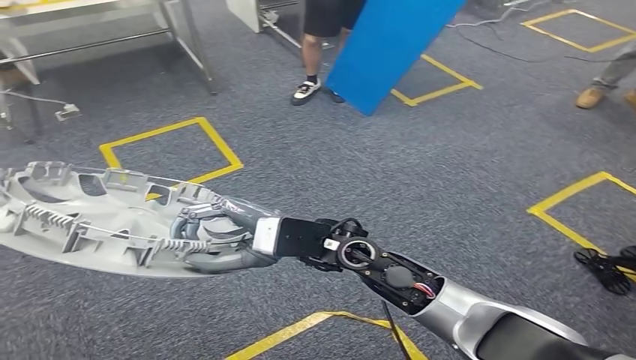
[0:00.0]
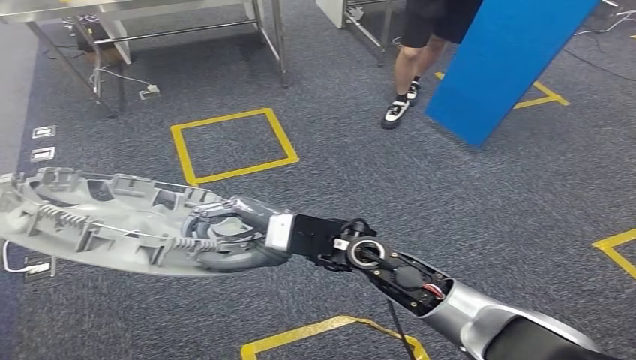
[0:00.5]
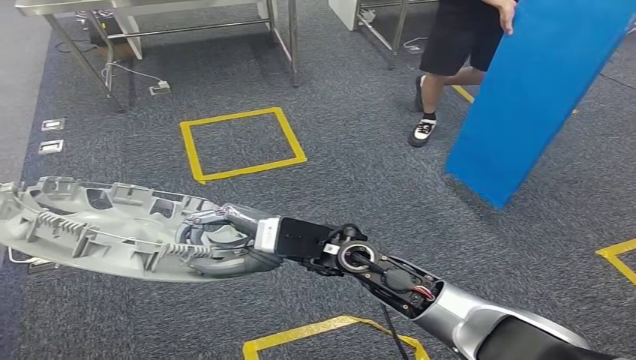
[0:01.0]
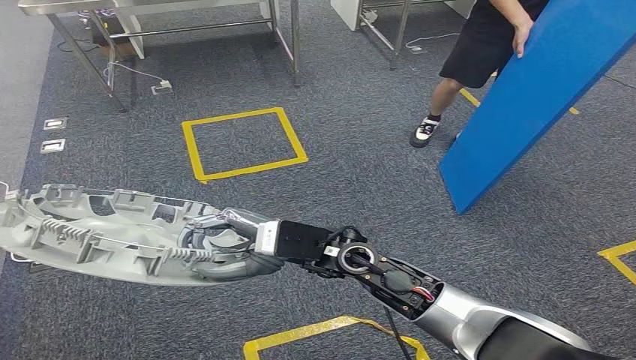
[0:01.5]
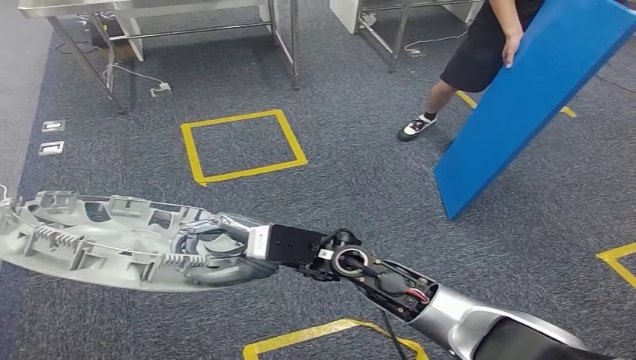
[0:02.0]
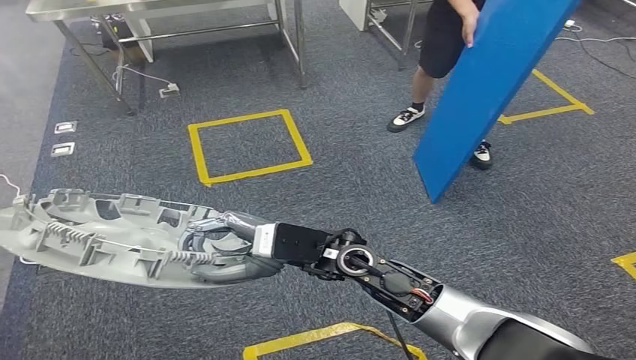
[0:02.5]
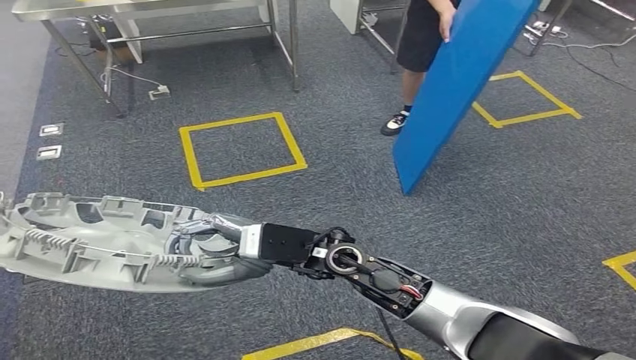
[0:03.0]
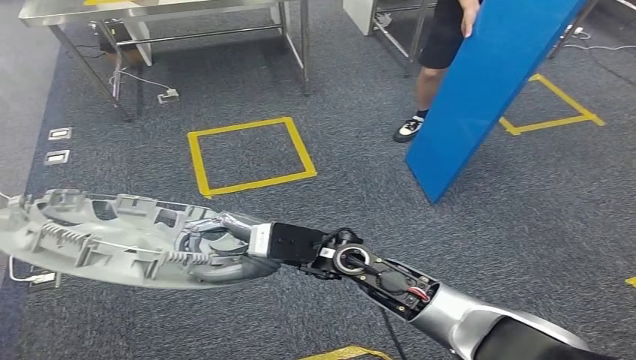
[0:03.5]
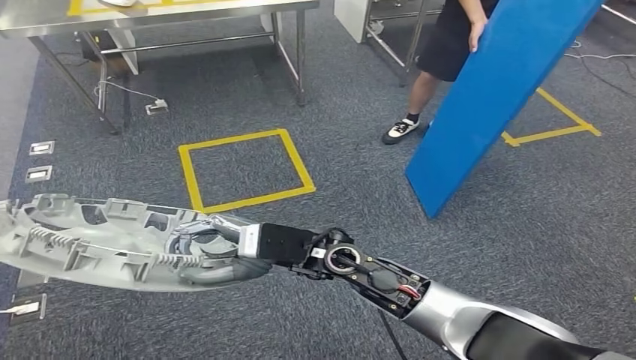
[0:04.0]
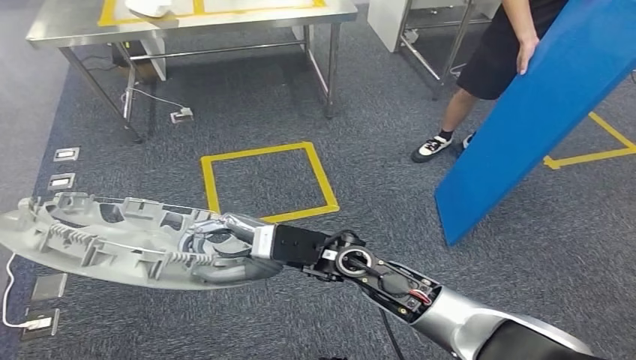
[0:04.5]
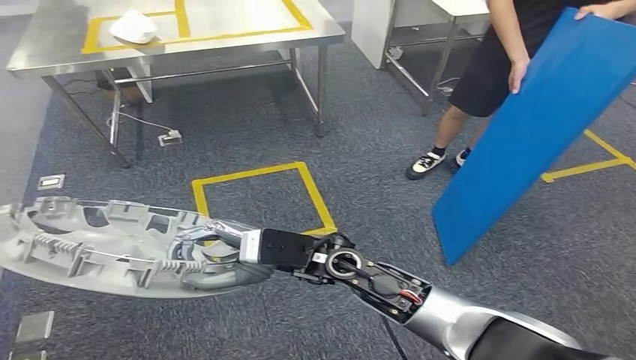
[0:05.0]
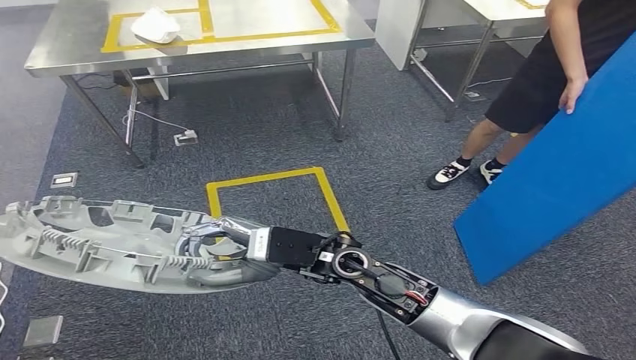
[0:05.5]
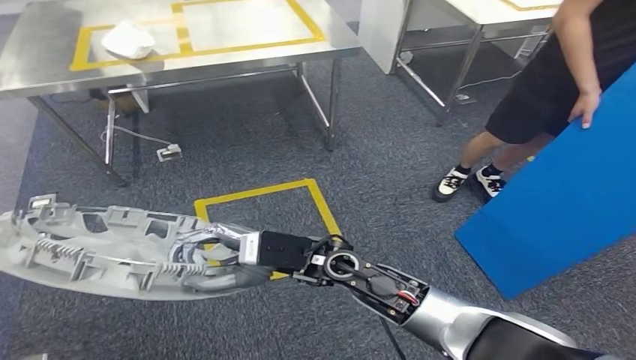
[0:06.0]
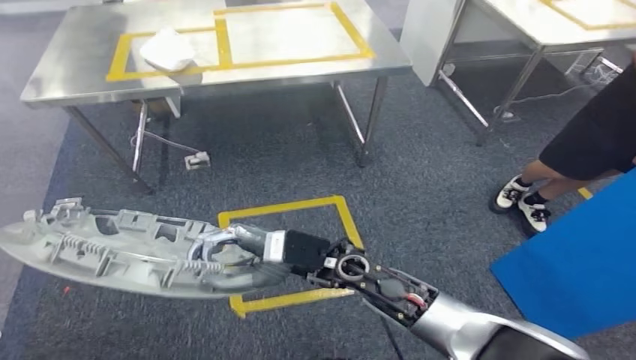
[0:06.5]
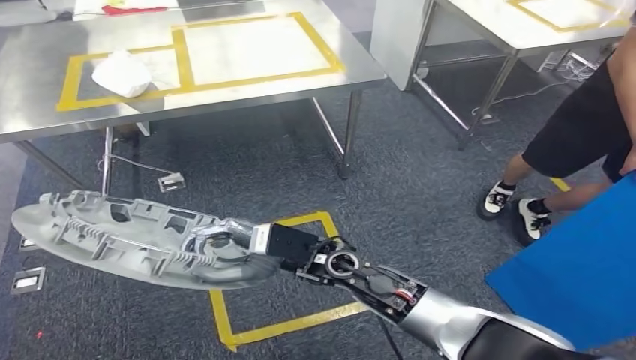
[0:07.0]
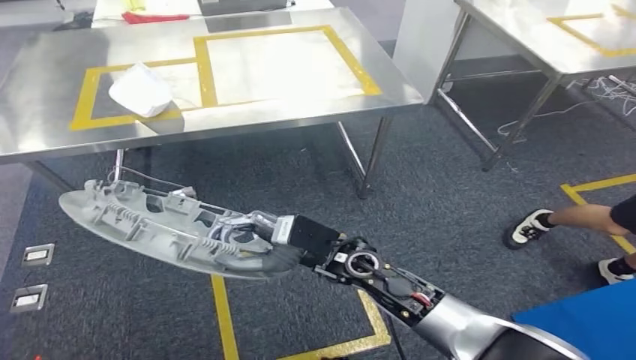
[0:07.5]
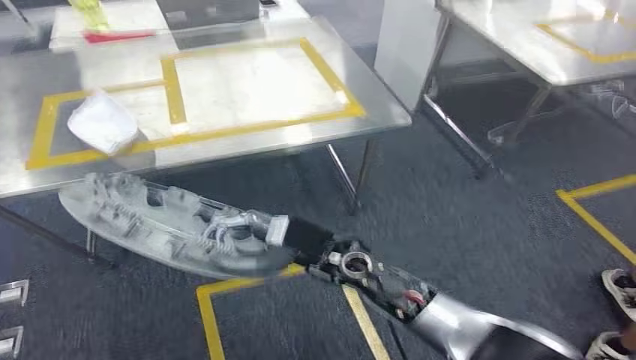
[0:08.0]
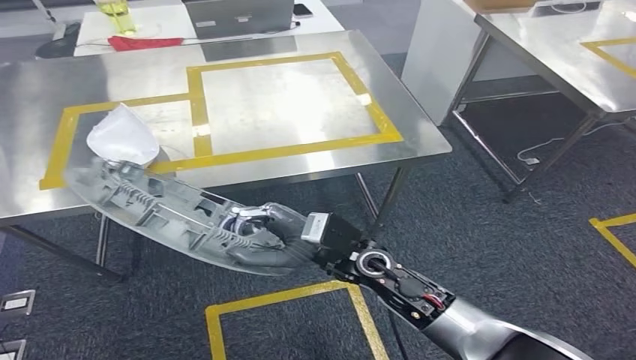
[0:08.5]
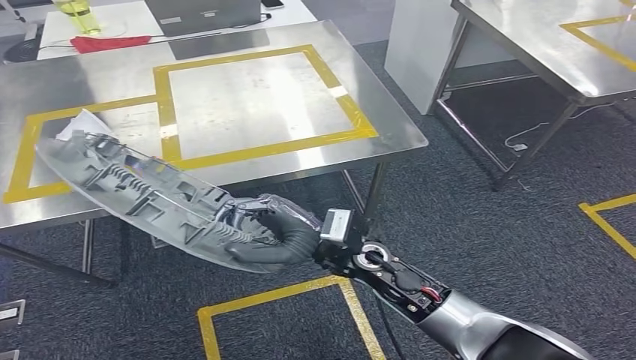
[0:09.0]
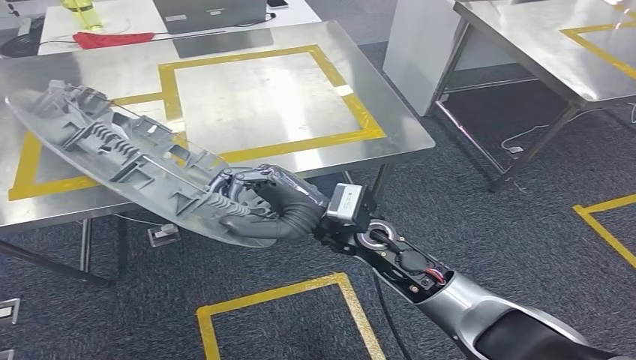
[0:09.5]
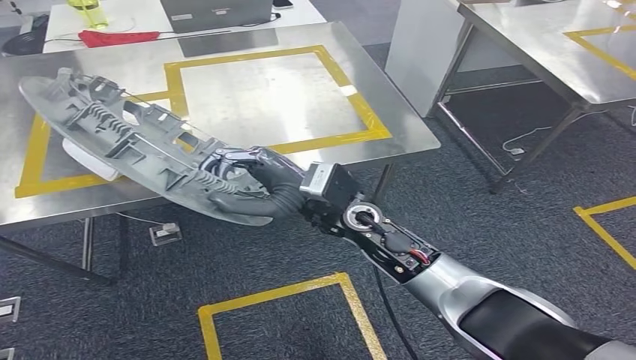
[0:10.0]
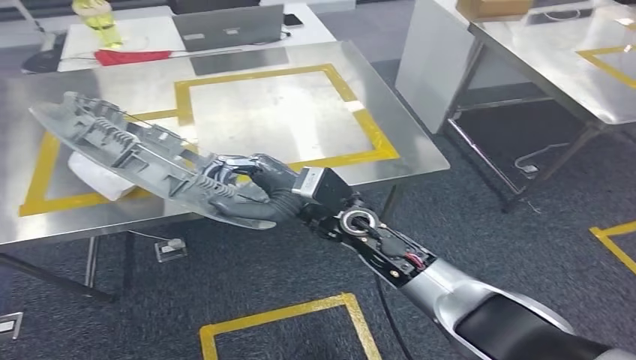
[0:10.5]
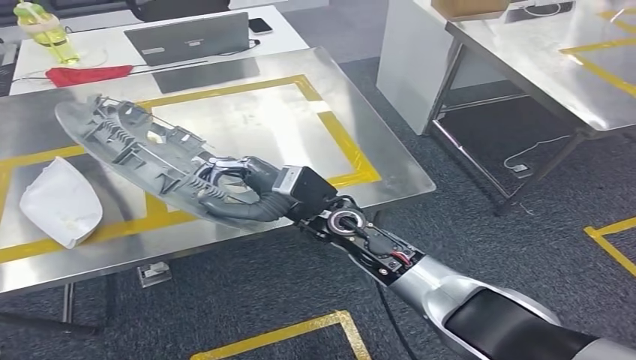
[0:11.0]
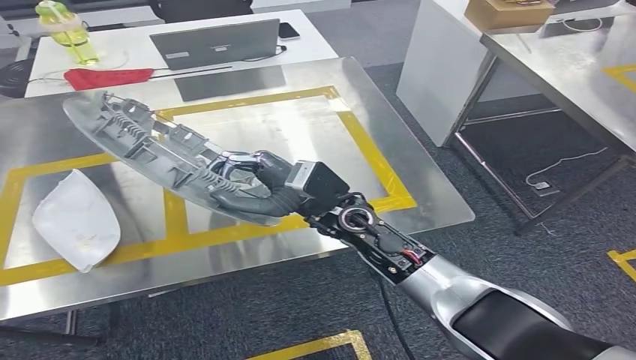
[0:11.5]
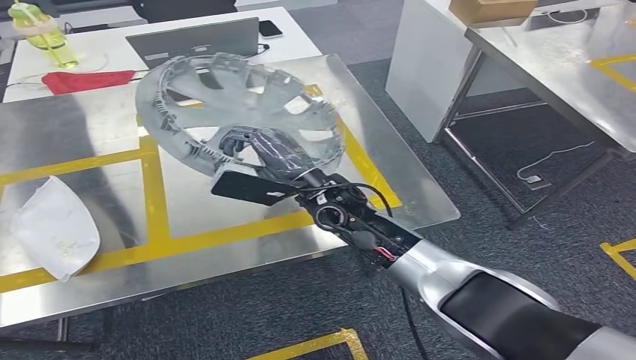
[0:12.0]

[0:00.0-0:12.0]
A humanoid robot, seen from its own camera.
Step, 0:00.0 to 0:07.5: Move the small component to the workbench.

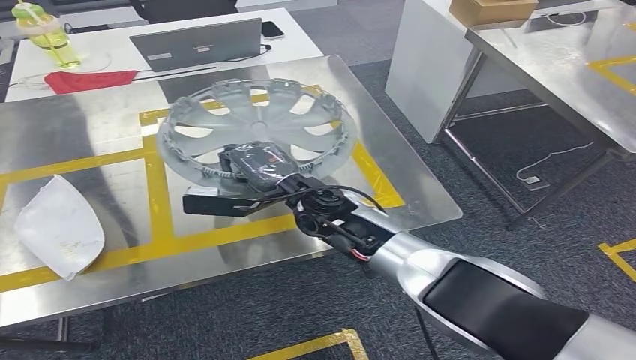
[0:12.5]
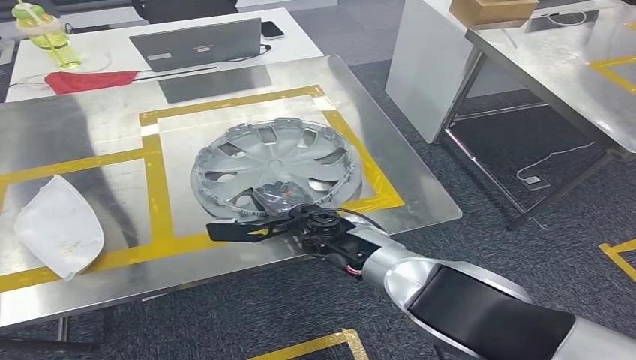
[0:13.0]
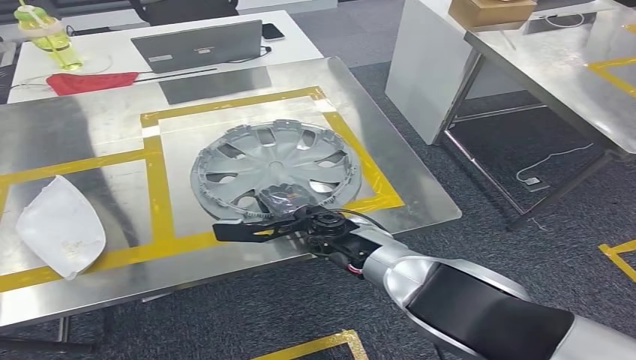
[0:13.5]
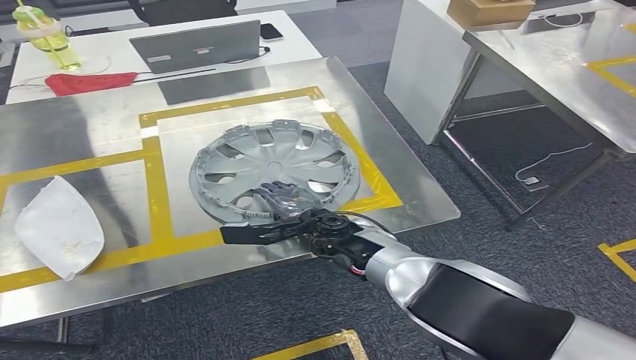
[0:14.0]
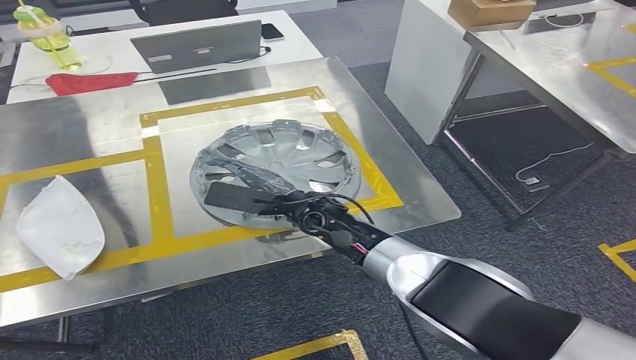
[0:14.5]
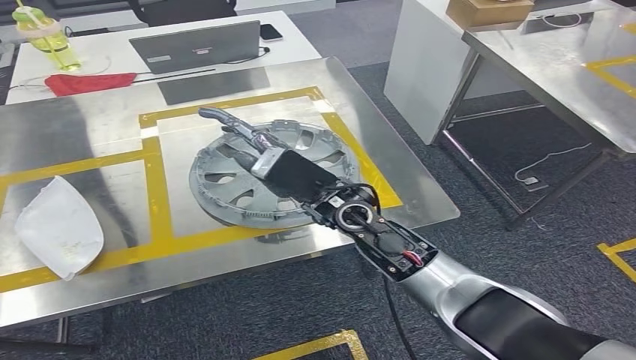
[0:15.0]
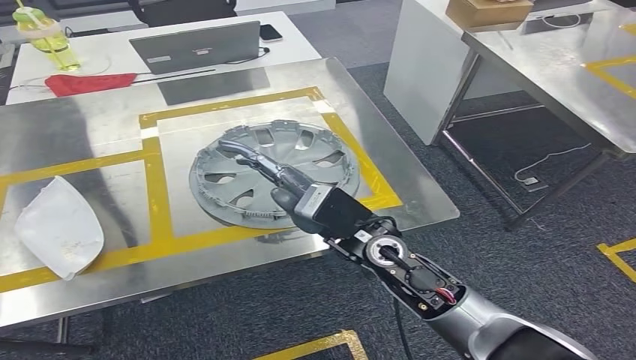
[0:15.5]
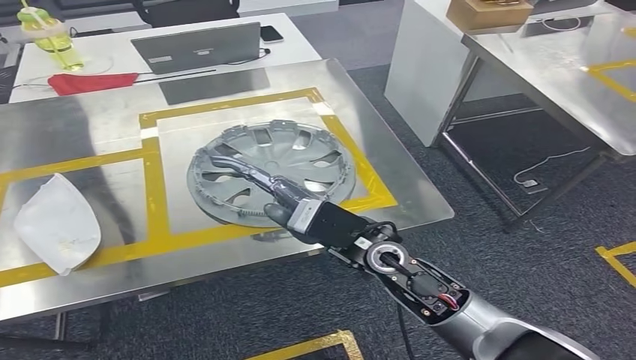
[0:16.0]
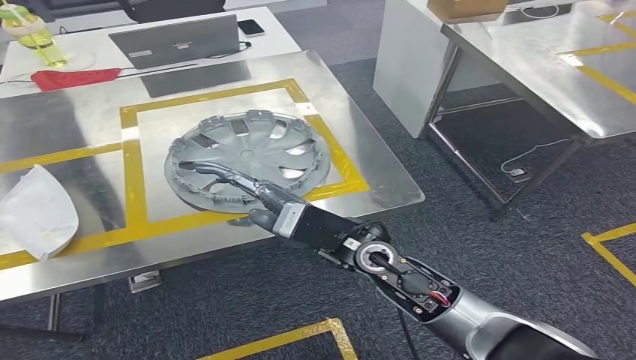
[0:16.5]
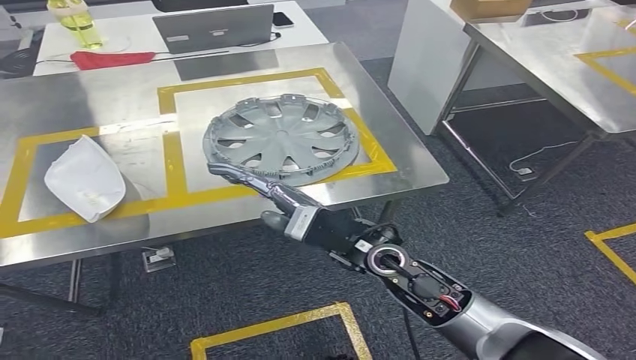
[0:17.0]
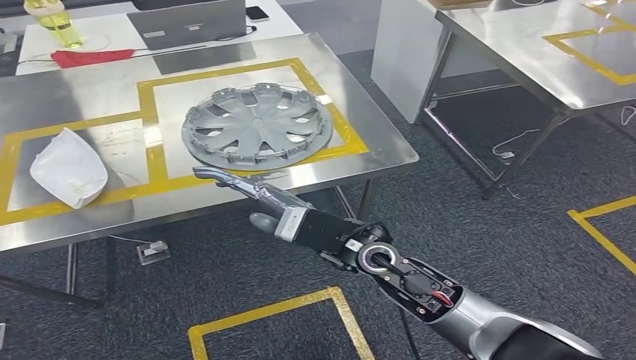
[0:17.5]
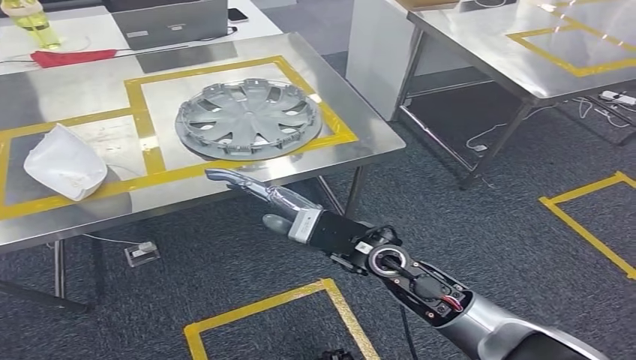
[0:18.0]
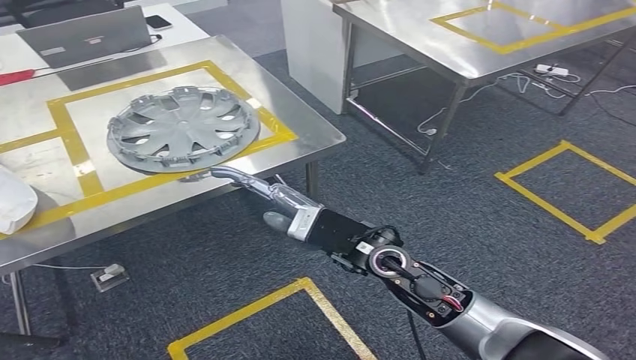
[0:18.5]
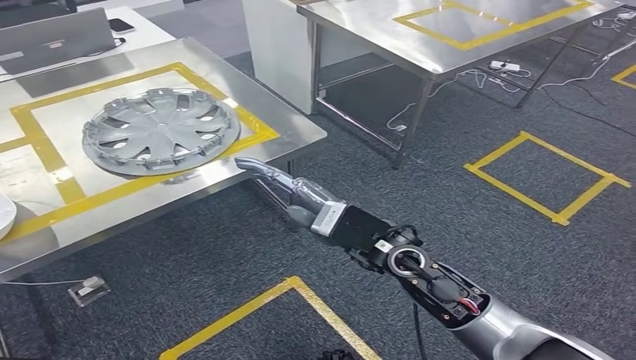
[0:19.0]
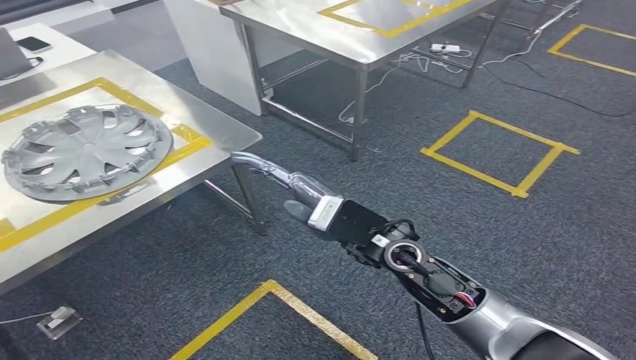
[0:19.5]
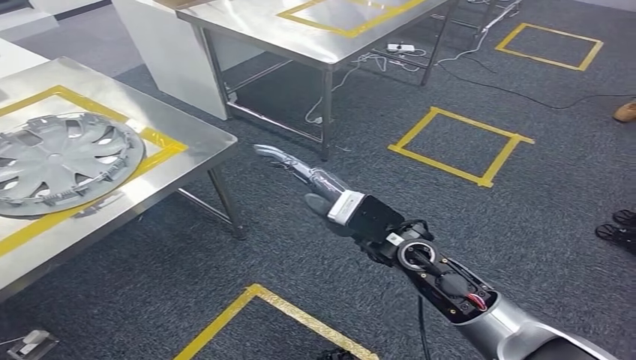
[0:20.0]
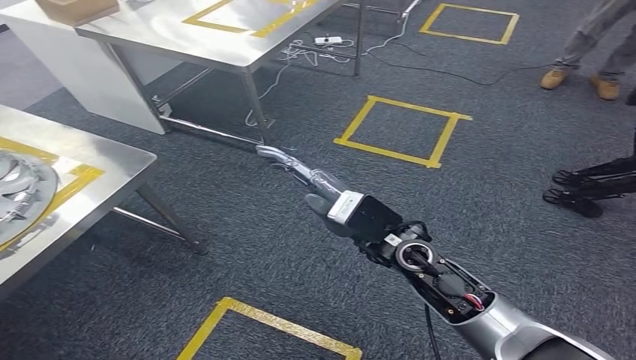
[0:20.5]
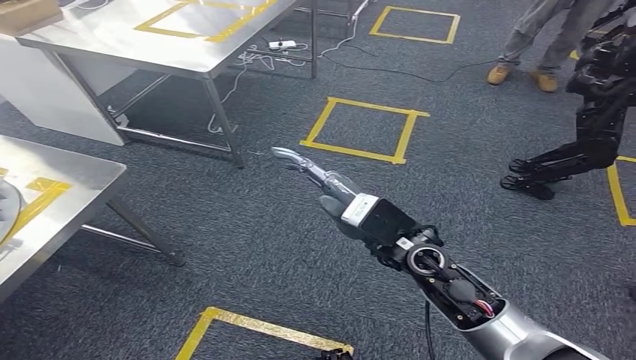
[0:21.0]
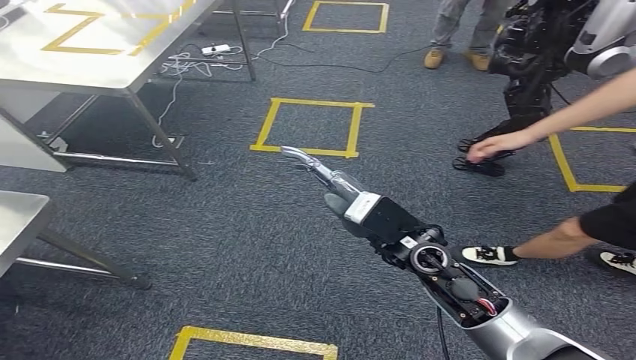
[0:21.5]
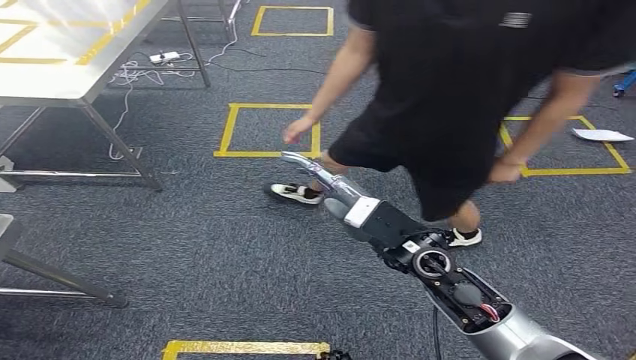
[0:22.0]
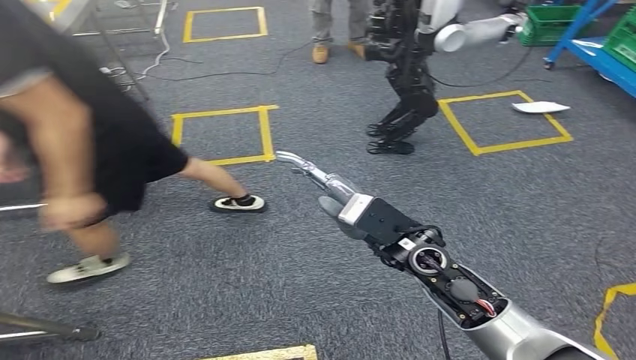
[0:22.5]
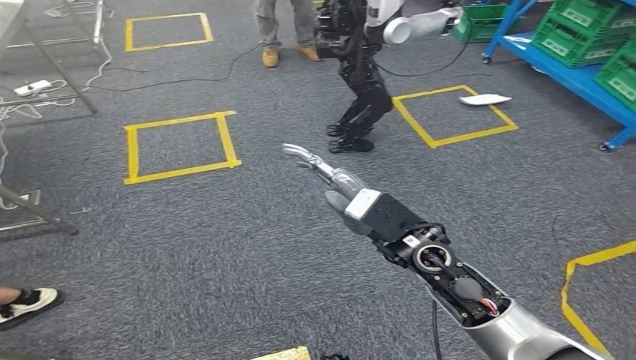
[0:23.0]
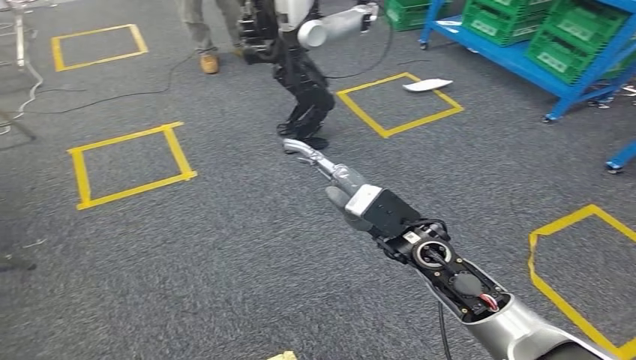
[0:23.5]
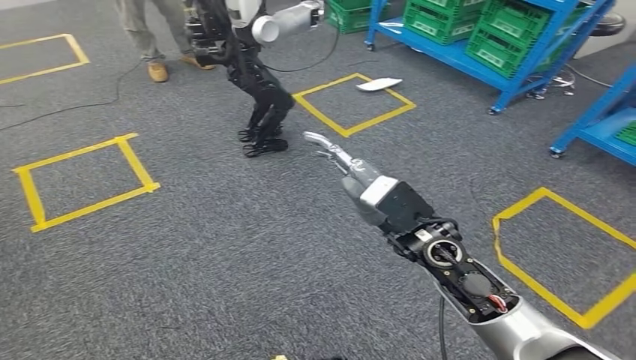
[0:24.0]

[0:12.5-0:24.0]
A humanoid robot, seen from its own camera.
Step, 0:12.5 to 0:15.0: Insert the small component into the corresponding slot on the workbench.
0:12.5 to 0:14.5: The right hand is displaced downward by roughly 5 cm.
